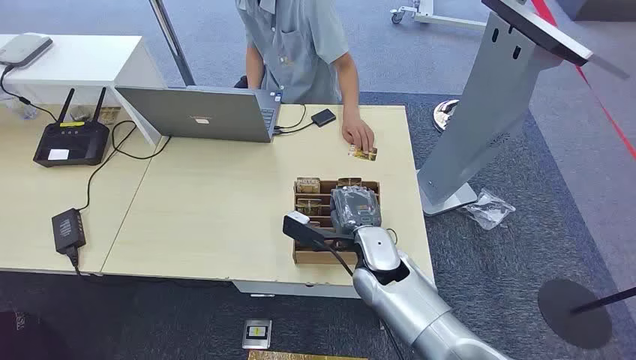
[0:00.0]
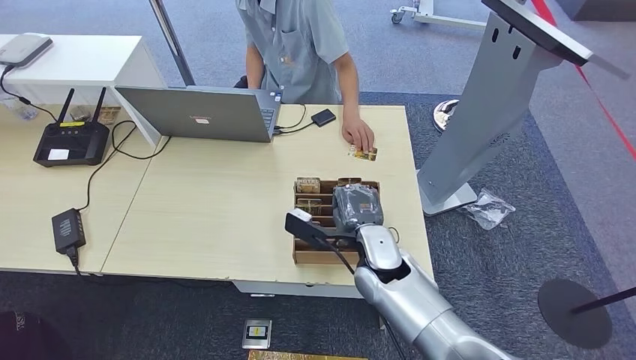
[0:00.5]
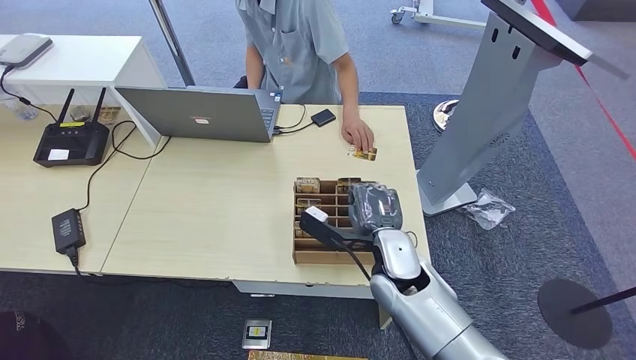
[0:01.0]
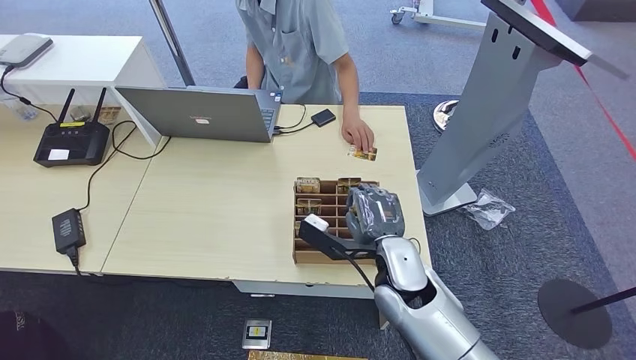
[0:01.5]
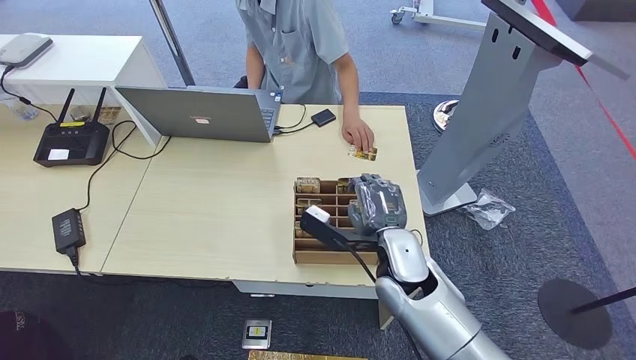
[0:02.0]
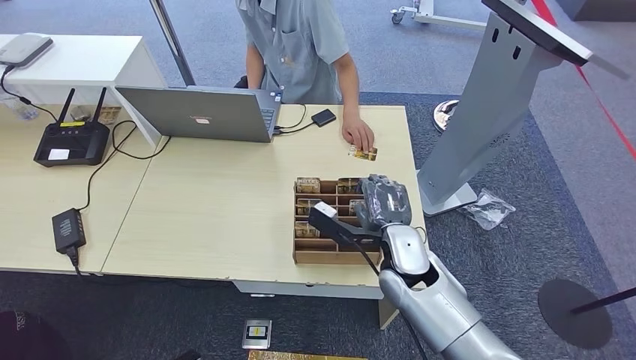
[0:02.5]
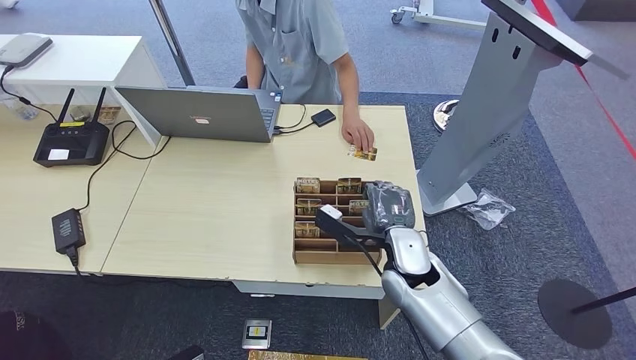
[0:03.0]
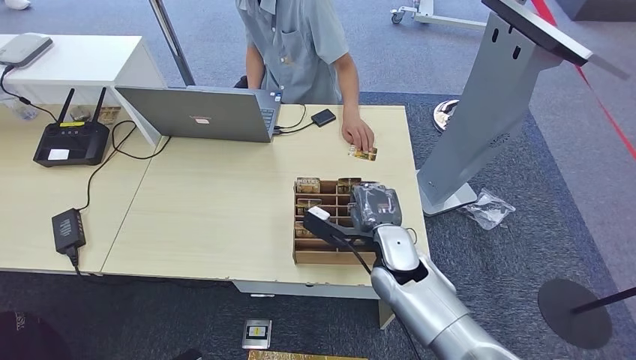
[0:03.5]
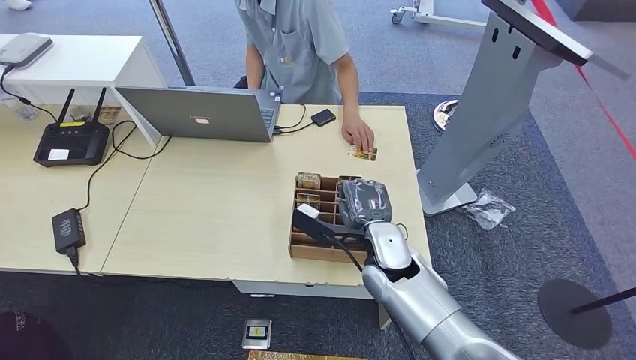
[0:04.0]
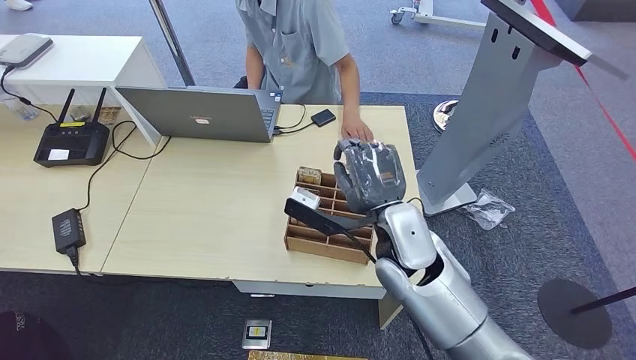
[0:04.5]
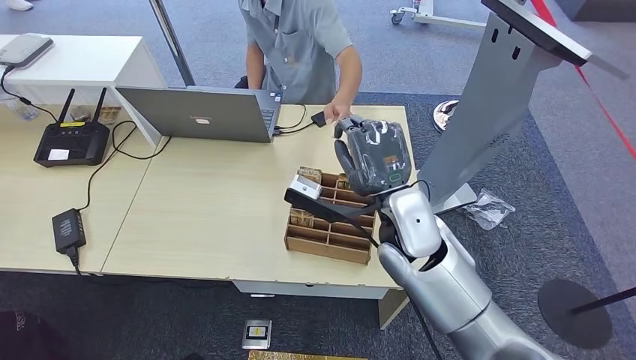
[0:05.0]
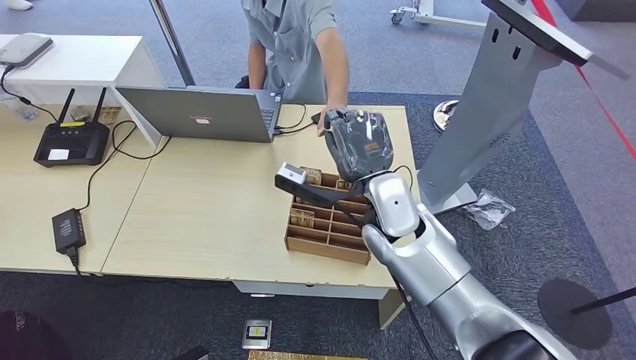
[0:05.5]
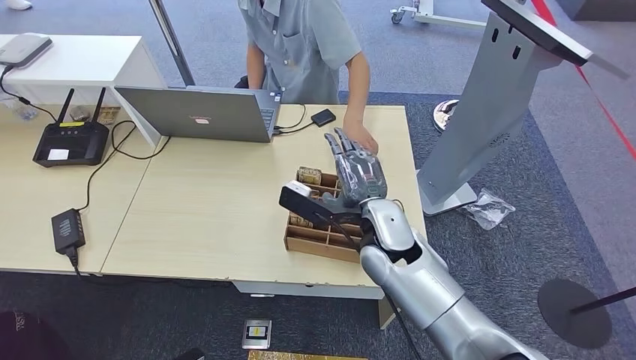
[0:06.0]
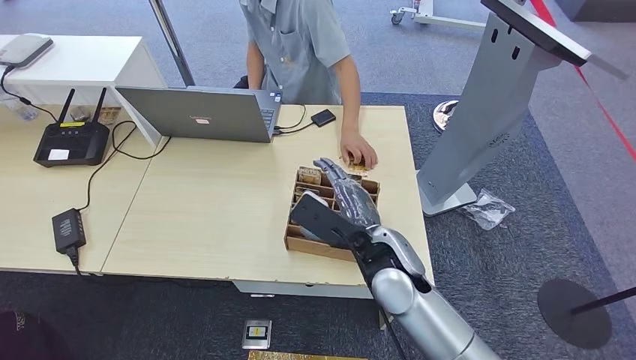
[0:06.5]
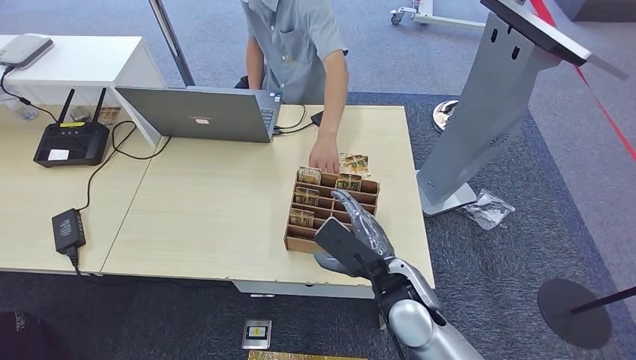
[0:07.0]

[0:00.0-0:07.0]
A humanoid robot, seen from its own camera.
Step, 0:00.0 to 0:04.5: Pick up the key card from the card box.
Step, 0:05.5 to 0:07.0: Hand the key card to the target.
0:02.0 to 0:03.5: There are only small adjustments of the hands.
0:03.5 to 0:05.0: The right hand heads upward, covering approximately 10 cm.
0:05.0 to 0:07.0: The right hand heads downward and backward, covering approximately 10 cm.

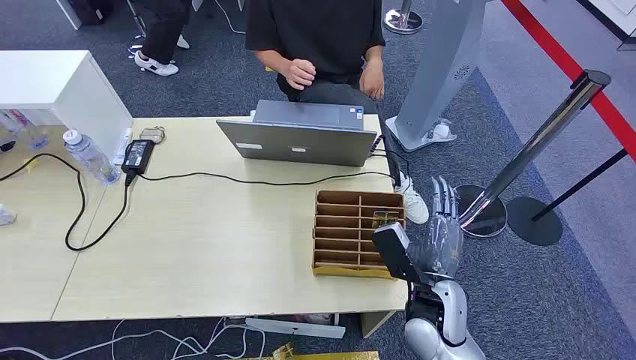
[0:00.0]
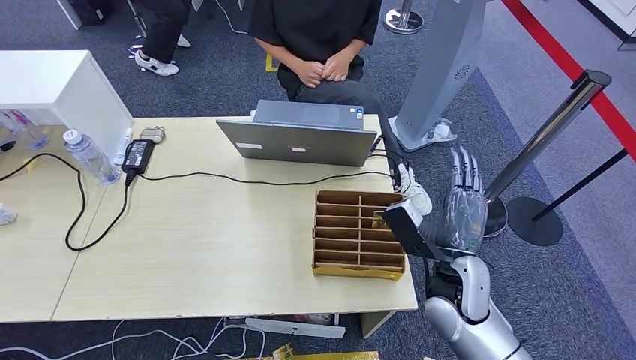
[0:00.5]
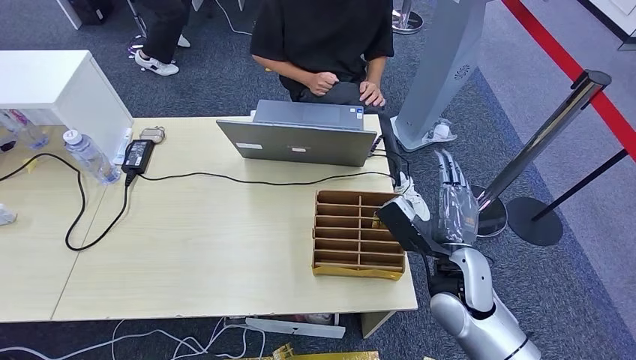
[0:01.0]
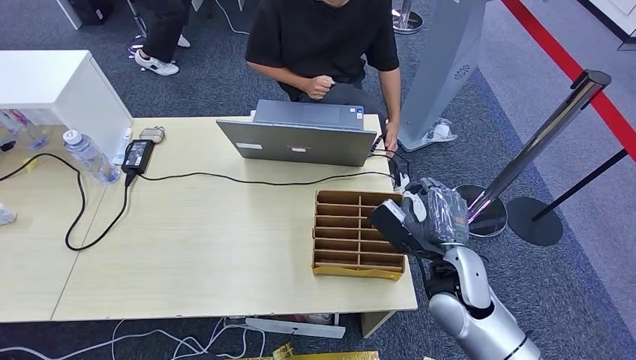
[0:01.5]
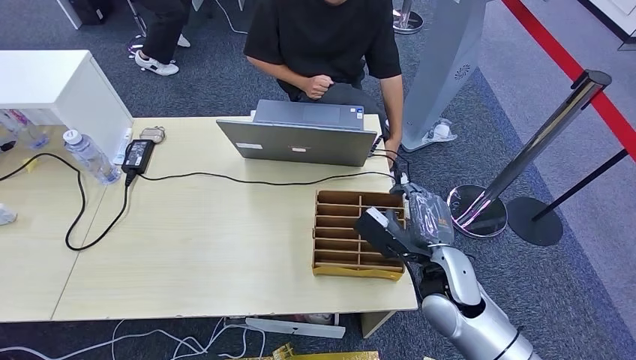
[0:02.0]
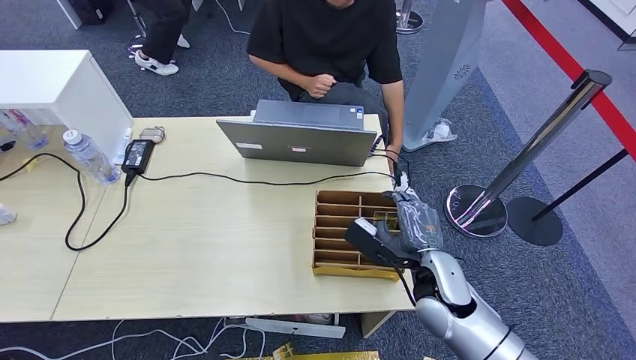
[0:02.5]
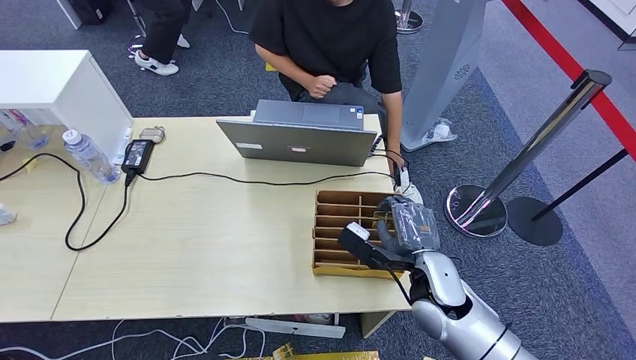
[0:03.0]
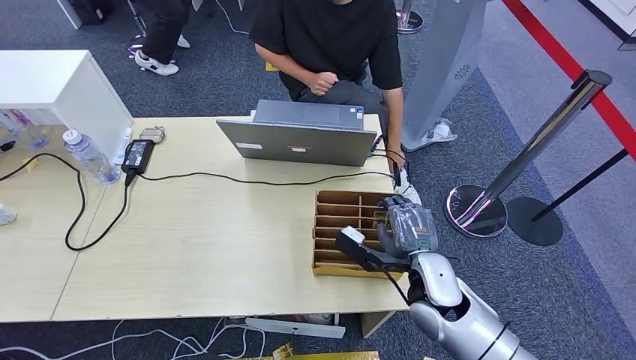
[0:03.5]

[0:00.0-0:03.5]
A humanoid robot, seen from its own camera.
Step, 0:00.0 to 0:03.5: Pick up the key card from the card box.
0:02.0 to 0:03.5: There are only small adjustments of the hands.
